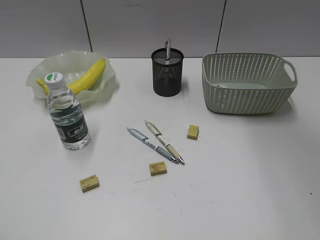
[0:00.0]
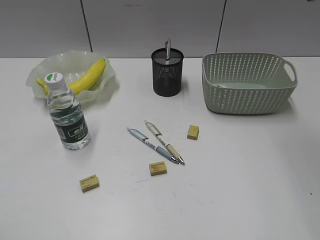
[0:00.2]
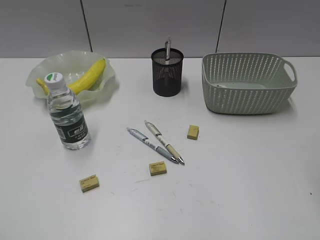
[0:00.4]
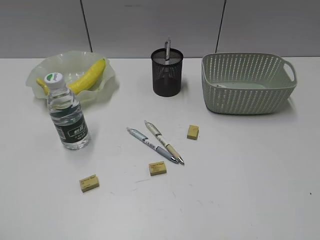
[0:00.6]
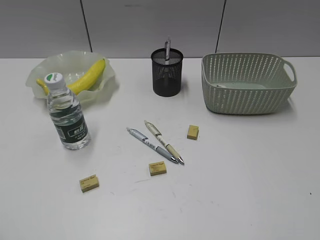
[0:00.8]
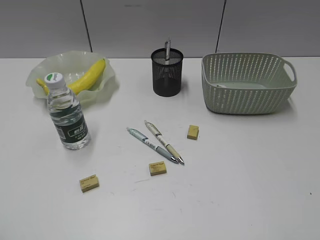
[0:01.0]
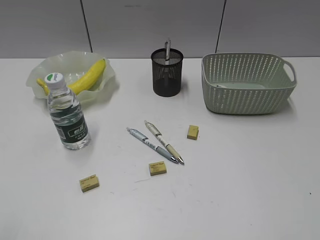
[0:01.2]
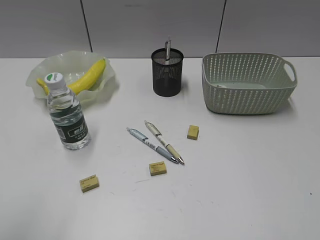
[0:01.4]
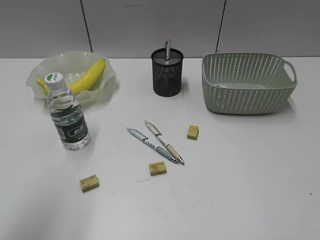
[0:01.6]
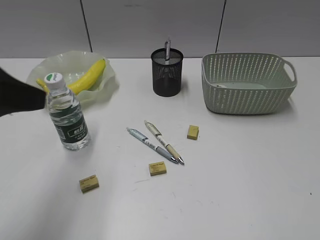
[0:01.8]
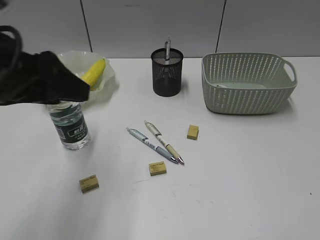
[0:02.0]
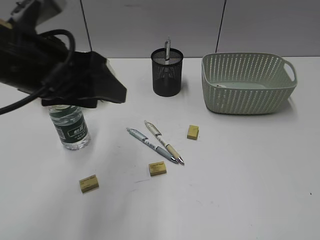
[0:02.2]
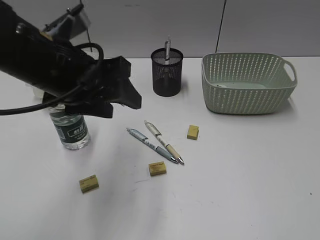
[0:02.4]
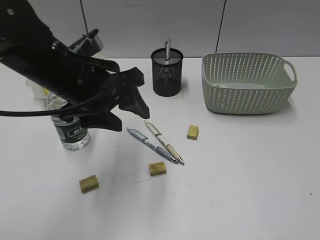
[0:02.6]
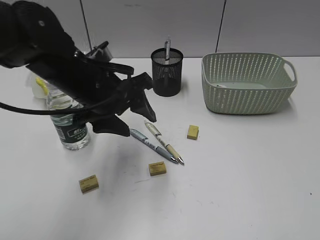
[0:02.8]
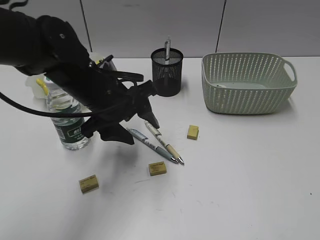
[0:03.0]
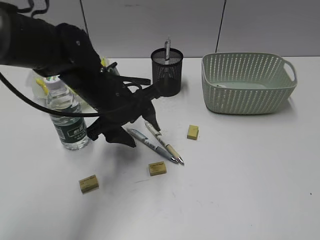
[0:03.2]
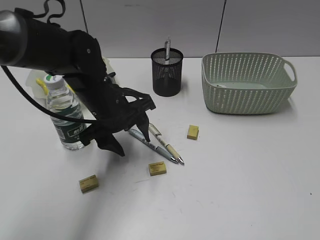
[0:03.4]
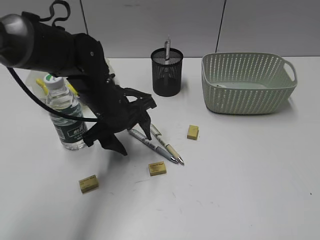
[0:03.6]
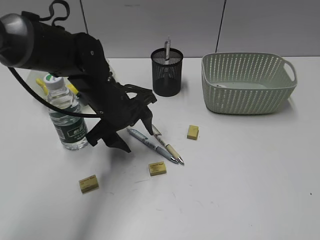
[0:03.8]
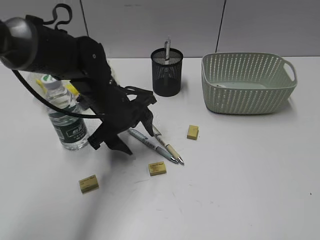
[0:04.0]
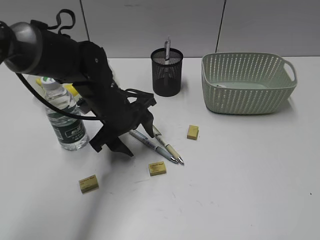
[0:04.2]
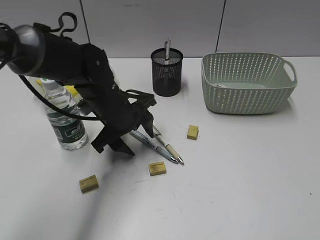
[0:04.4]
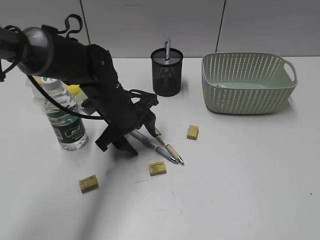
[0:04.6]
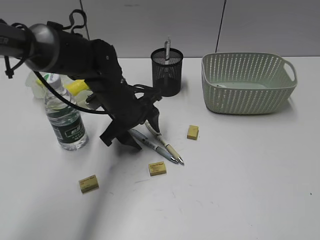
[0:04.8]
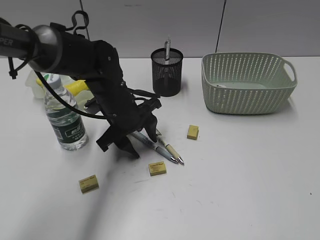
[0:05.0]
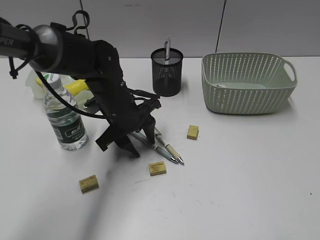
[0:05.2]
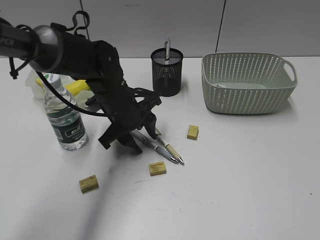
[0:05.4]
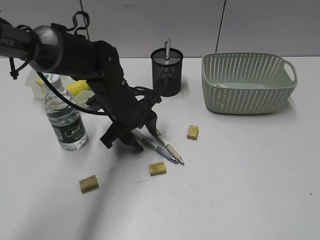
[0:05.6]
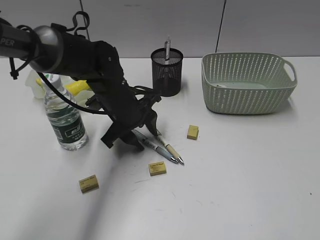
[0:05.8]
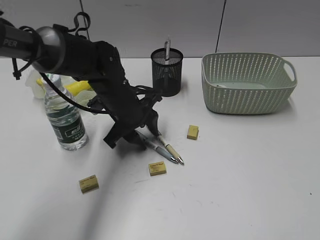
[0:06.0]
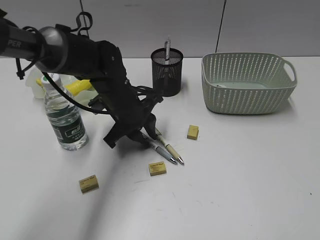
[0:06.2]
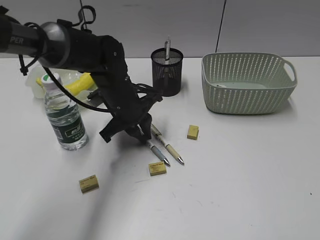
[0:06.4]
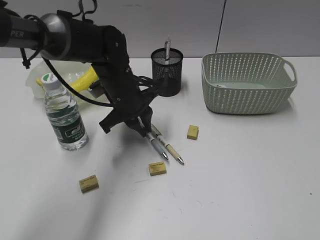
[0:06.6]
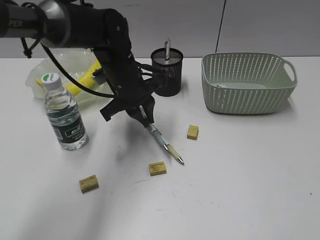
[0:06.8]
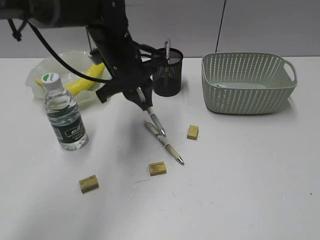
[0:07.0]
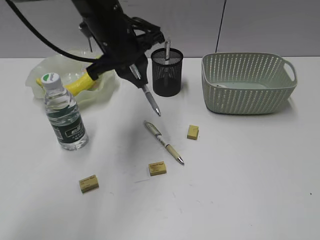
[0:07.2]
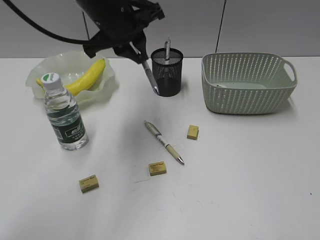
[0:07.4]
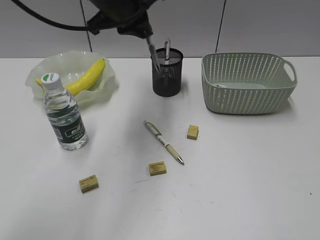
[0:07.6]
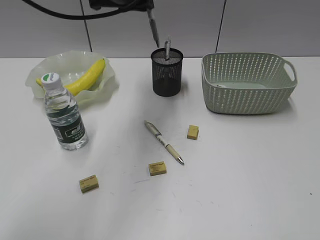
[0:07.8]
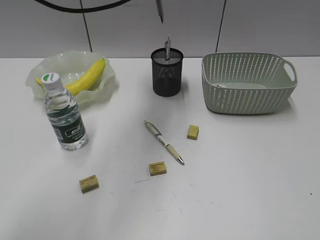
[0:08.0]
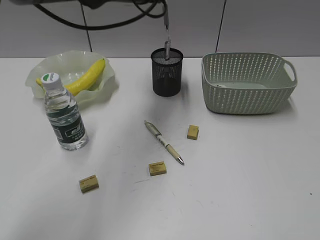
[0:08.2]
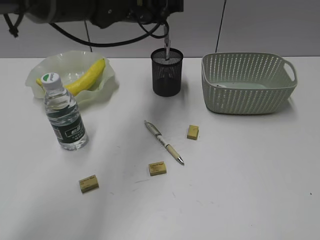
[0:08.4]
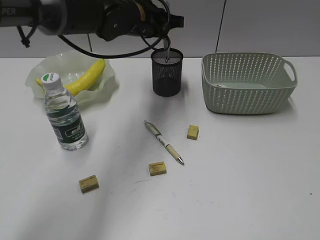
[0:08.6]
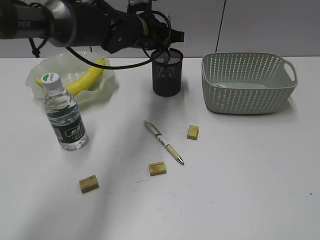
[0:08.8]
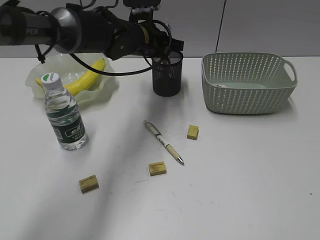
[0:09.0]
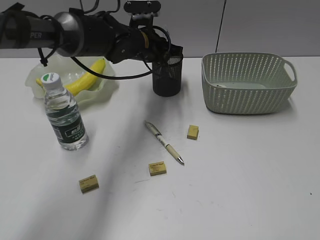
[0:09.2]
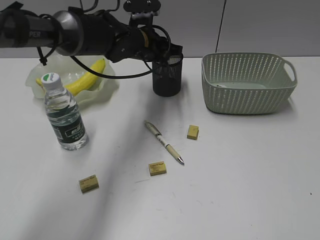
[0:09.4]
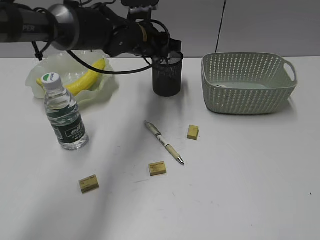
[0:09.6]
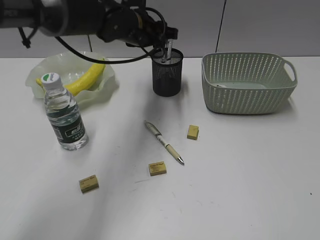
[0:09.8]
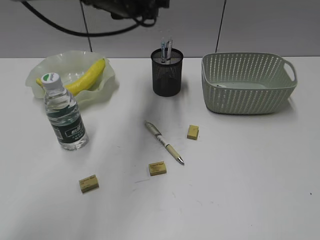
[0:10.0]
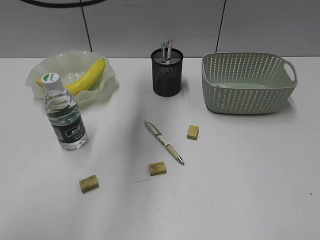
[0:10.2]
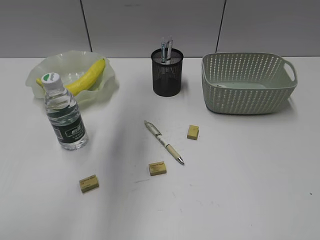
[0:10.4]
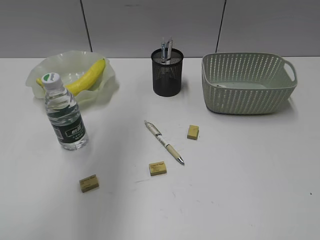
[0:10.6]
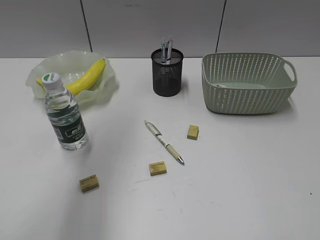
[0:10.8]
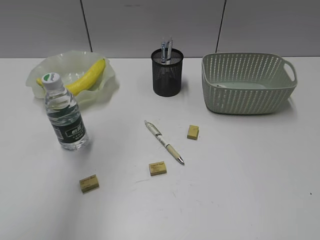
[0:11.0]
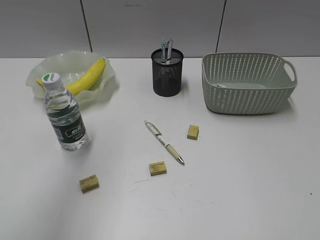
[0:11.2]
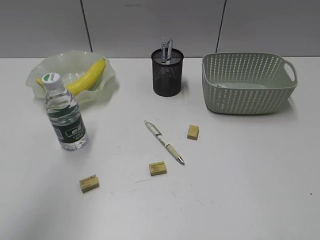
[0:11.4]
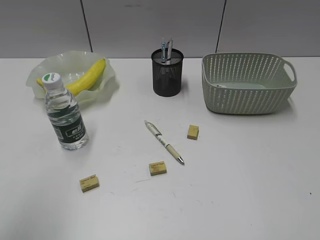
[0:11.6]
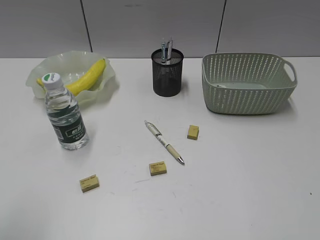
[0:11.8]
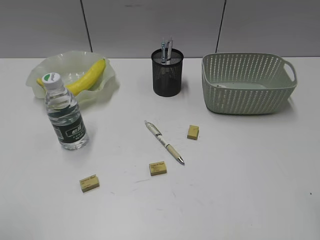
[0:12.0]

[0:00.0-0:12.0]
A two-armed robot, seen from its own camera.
Step, 0:00.0 to 0:06.2: Grasp the blue pen with left gripper.
Step, 0:06.4 to 0:09.8: Place the blue pen in pen holder with left gripper.
0:00.0 to 0:01.6: The left gripper goes roughly 10 cm forward and to the right, while the right gripper travels backward, to the right and downward by some 35 cm.
0:01.6 to 0:03.0: The left gripper heads forward, to the right and downward, covering roughly 30 cm.
0:03.0 to 0:04.4: The left gripper is displaced downward by roughly 5 cm.
0:04.4 to 0:06.0: There are only small adjustments of the grippers.
0:06.0 to 0:07.6: The left gripper heads upward, covering about 20 cm, and closes its fingers.
0:07.6 to 0:09.0: The left gripper goes approximately 15 cm downward and forward.
0:09.0 to 0:10.4: The left gripper shifts approximately 25 cm upward, backward and to the left, and opens.
0:10.4 to 0:12.0: The right gripper goes approximately 10 cm forward, while the left gripper moves backward and to the left, some 35 cm.

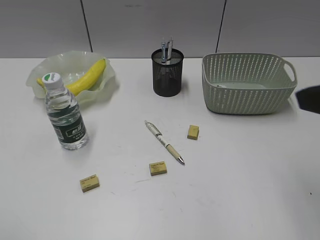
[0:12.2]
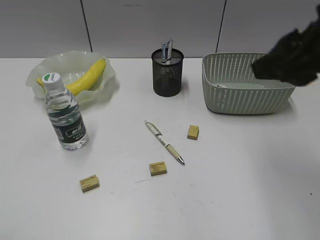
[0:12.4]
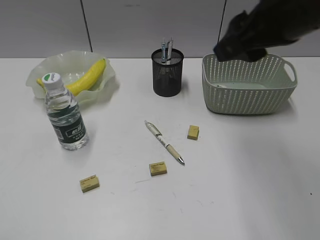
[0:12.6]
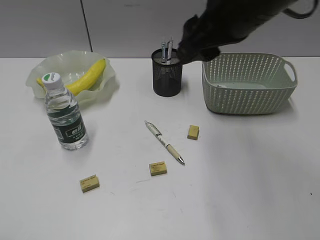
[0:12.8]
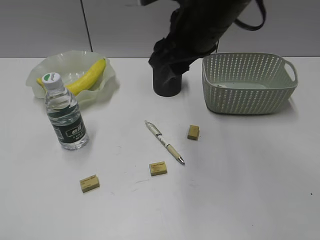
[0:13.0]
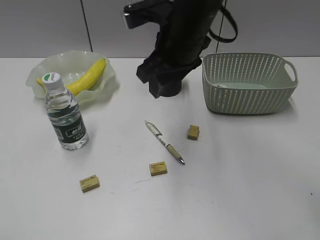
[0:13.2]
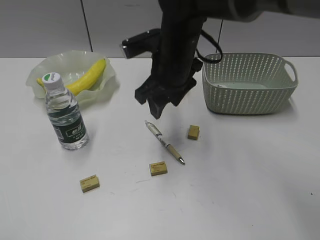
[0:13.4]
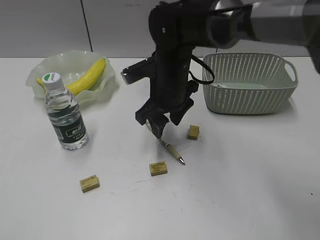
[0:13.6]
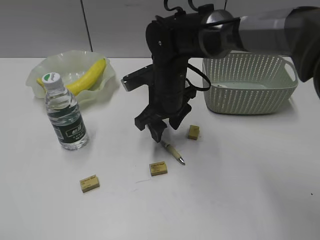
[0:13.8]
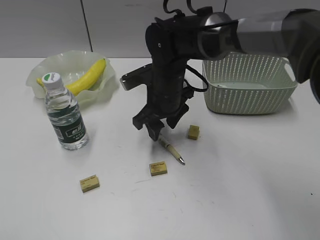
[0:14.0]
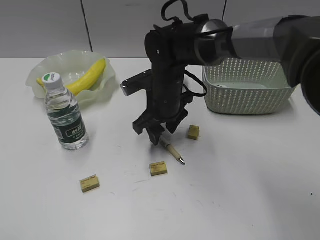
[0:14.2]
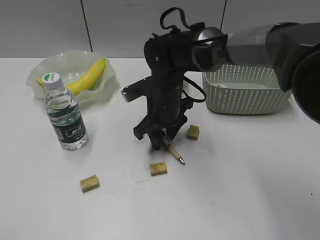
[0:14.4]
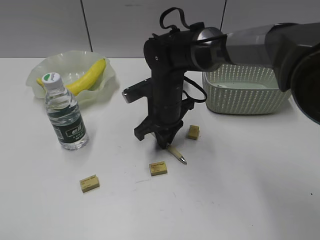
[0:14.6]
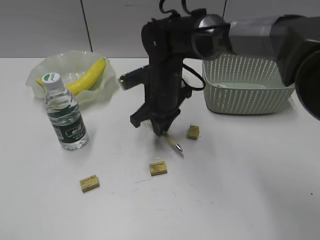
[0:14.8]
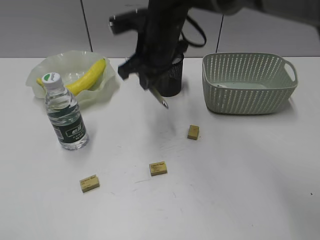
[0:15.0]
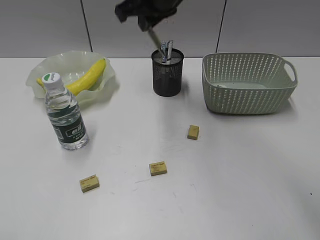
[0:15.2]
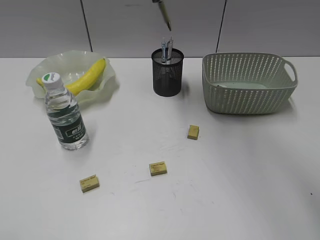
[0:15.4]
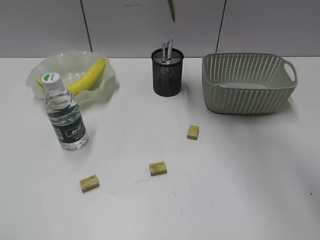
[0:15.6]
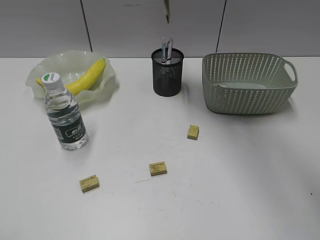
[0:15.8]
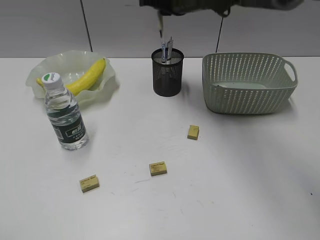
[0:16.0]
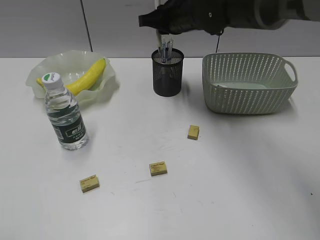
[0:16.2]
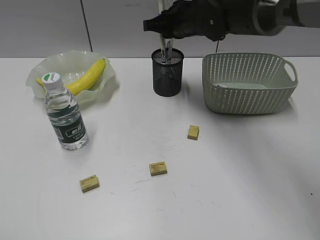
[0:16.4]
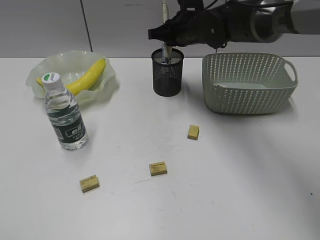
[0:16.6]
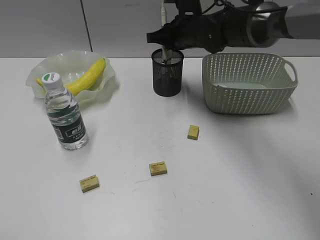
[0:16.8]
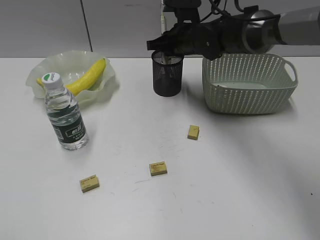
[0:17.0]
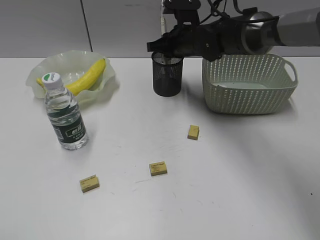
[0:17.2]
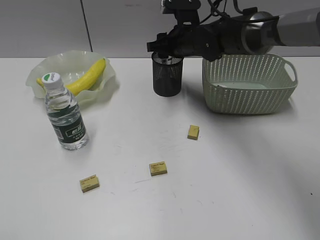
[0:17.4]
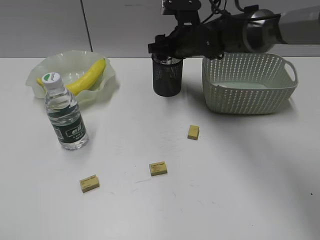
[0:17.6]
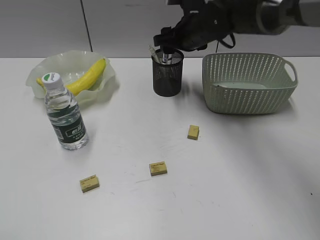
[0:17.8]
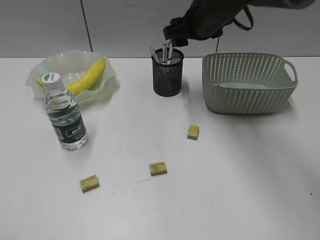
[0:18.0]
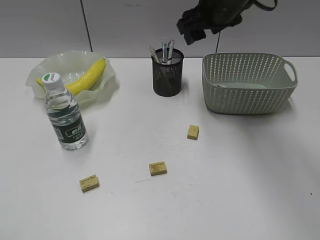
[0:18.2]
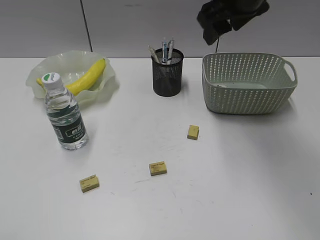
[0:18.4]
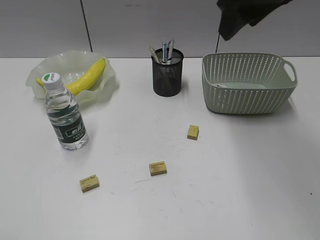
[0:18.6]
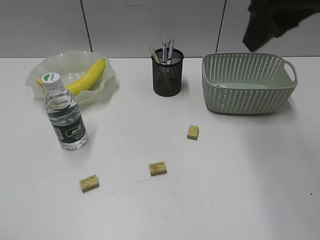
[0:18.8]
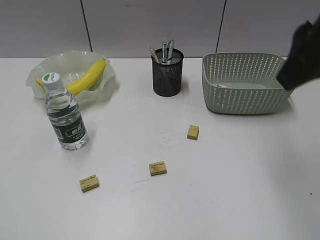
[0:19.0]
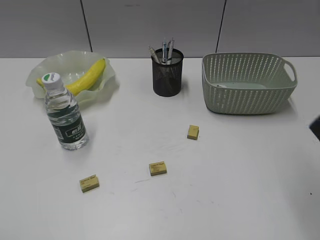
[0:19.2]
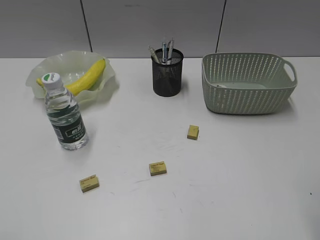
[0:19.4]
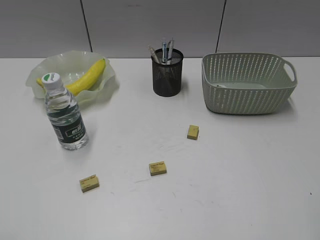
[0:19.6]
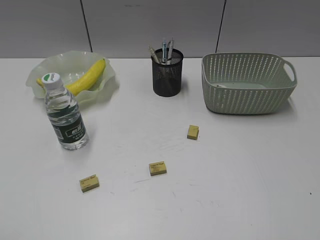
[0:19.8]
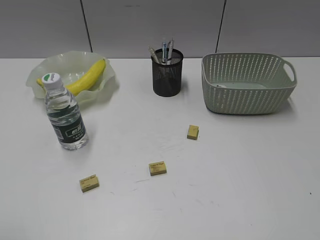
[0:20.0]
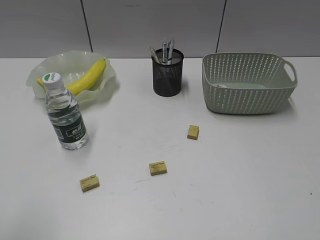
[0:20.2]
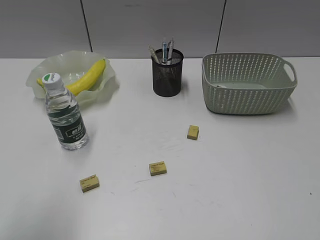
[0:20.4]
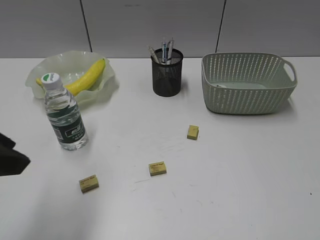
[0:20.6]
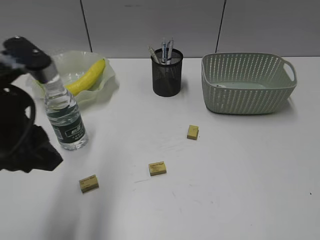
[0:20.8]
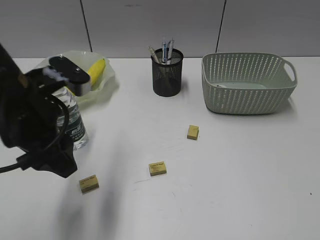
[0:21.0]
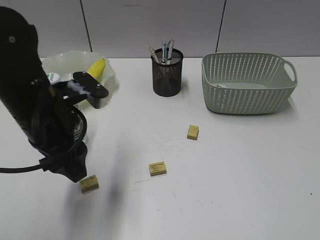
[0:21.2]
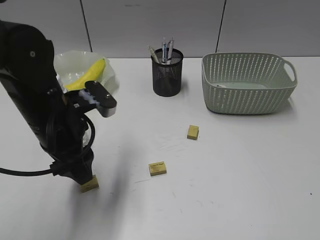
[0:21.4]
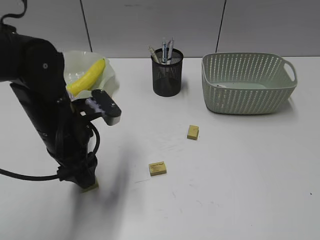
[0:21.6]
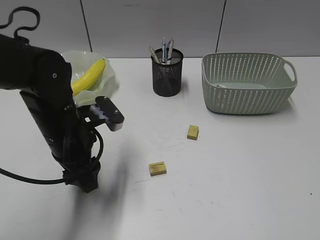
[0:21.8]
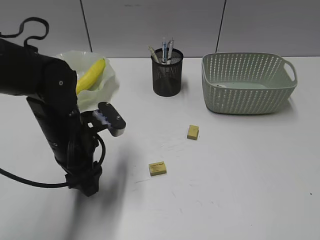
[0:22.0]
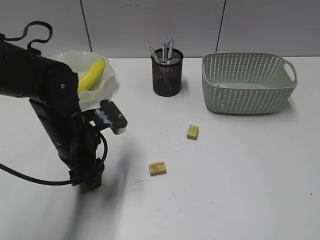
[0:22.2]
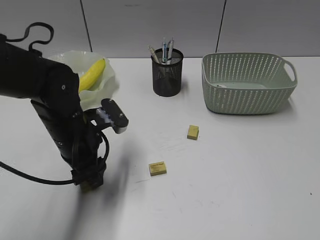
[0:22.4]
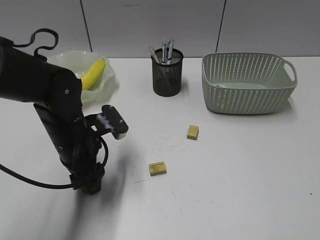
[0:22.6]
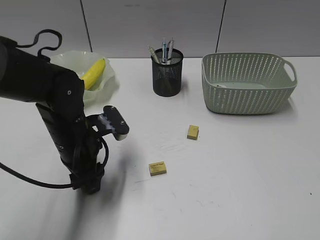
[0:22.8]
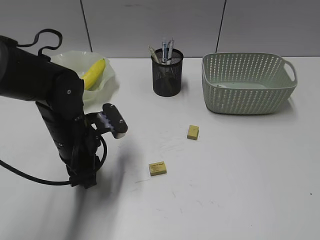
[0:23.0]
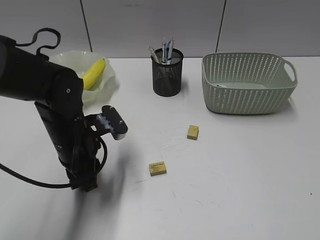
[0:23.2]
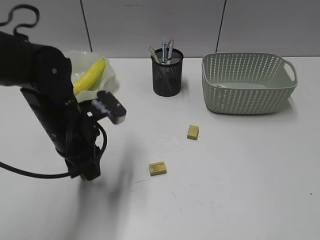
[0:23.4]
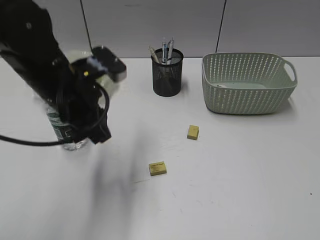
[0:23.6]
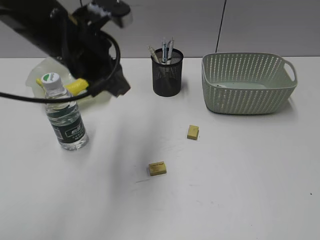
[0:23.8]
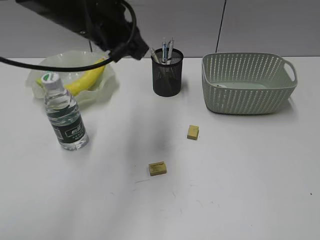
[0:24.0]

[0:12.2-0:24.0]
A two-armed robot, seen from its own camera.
Step, 0:12.2 to 0:14.6: Grasp the yellow pen with right gripper.
Step, 0:14.8 to 0:17.8: Place the yellow pen in pen holder with right gripper.
Step, 0:18.0 to 0:23.0: Grasp the eraser with left gripper.
0:12.2 to 0:13.6: The right gripper moves forward, to the left and downward, some 35 cm.
0:13.6 to 0:15.2: The right gripper goes about 15 cm upward, and closes.
0:15.2 to 0:16.6: The right gripper moves downward, forward and to the right, roughly 15 cm.
0:16.6 to 0:18.2: The right gripper shifts roughly 10 cm upward and backward, and opens up.
0:18.2 to 0:19.6: The right gripper moves backward and to the right, approximately 35 cm.
0:19.6 to 0:21.0: The left gripper moves forward and to the right, roughly 30 cm, while the right gripper travels backward and to the right by some 10 cm.
0:21.0 to 0:22.6: The left gripper shifts approximately 15 cm downward and forward.
0:22.6 to 0:24.0: The left gripper is displaced upward by roughly 15 cm, and closes up.
